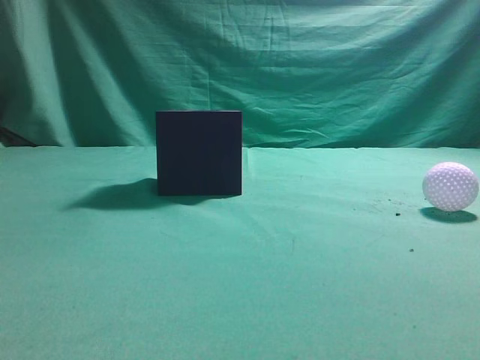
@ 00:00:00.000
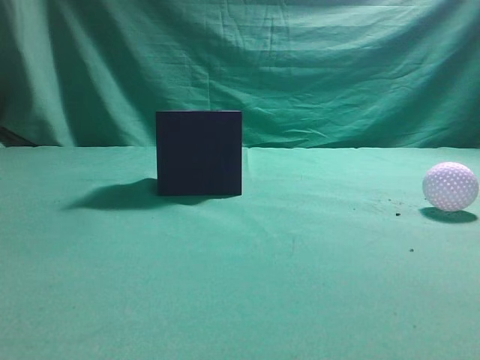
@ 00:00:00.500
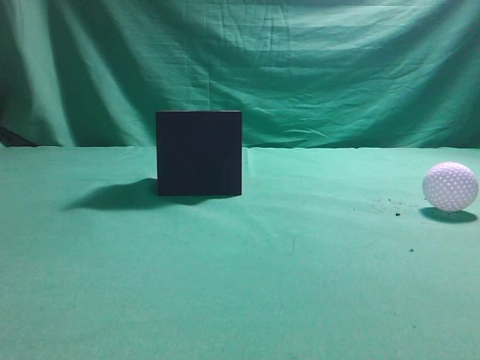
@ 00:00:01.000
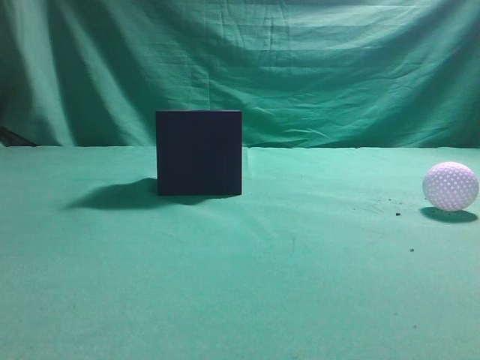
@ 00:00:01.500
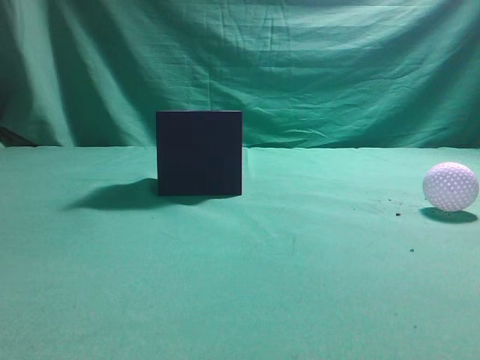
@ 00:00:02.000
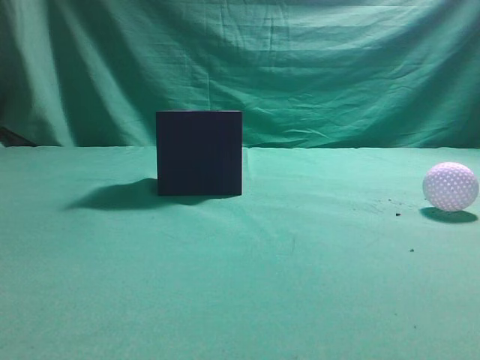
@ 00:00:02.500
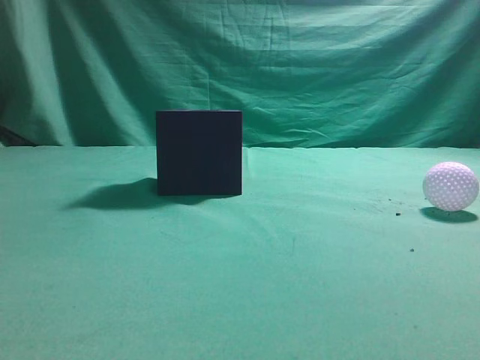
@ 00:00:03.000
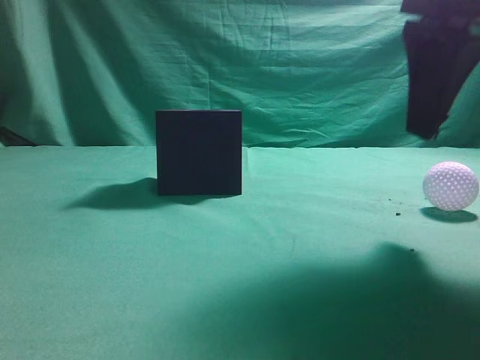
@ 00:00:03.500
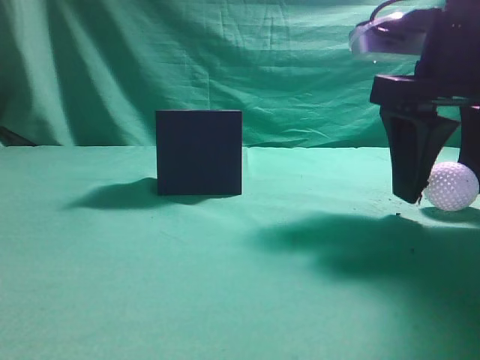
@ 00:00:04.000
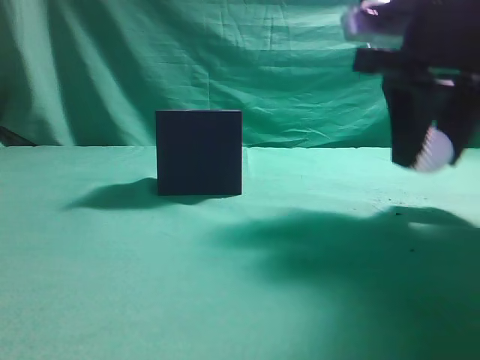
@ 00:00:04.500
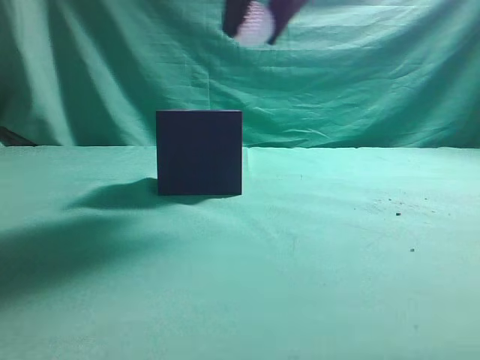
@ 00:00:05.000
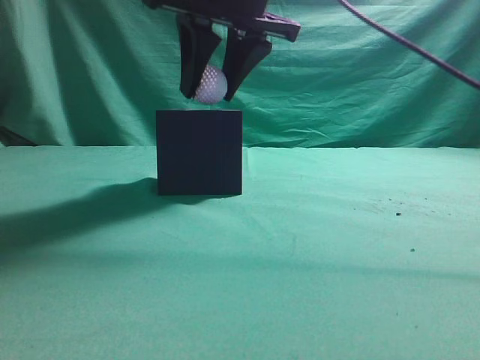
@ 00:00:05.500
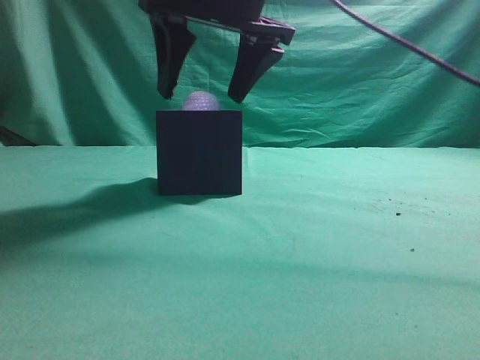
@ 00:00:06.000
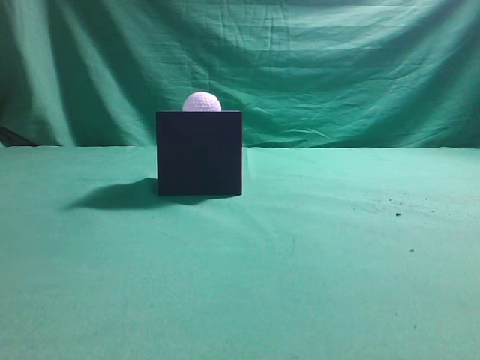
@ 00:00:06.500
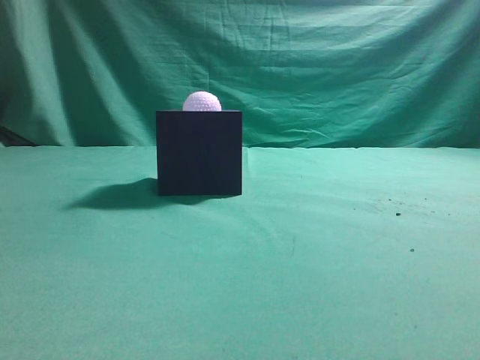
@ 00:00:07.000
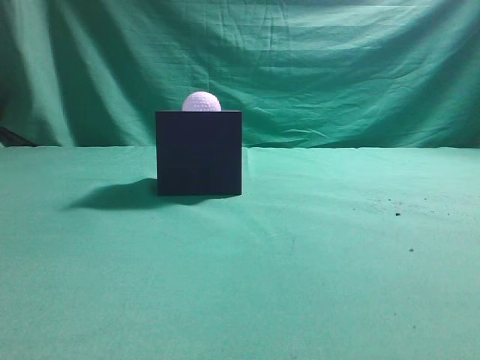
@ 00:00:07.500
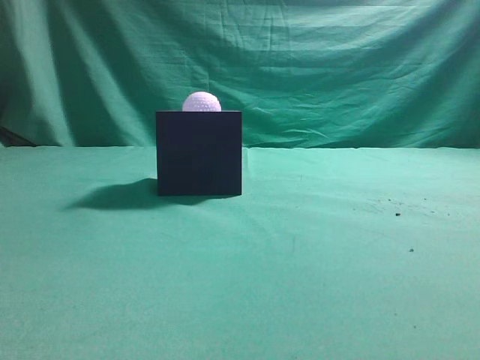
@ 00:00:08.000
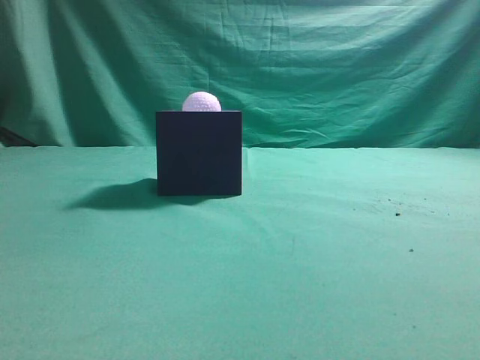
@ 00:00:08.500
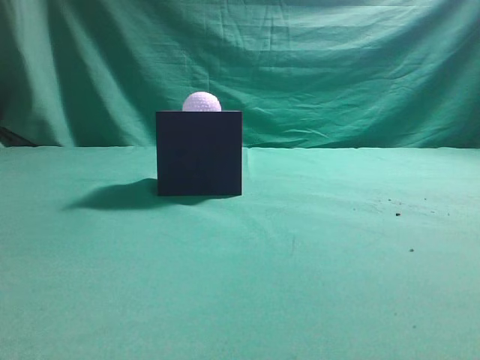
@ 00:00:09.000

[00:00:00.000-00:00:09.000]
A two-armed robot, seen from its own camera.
Task of the whole recording: Pick up the ball and place it in the circular groove above the cube.
Step, 00:00:00.000 to 00:00:03.500: Grasp the sphere on the table.
Step, 00:00:04.000 to 00:00:05.000: Place the sphere into the sphere-shaped recess.
00:00:02.000 to 00:00:04.500: The right gripper goes some 25 cm forward and to the left, and opens up.
00:00:04.500 to 00:00:07.000: The right gripper goes up and down, about 25 cm each way, reversing 2 times, and closes its fingers.
